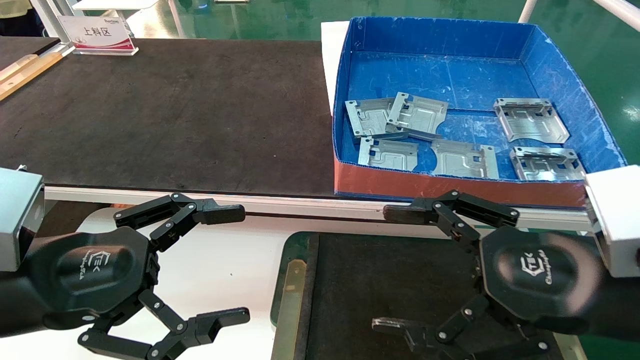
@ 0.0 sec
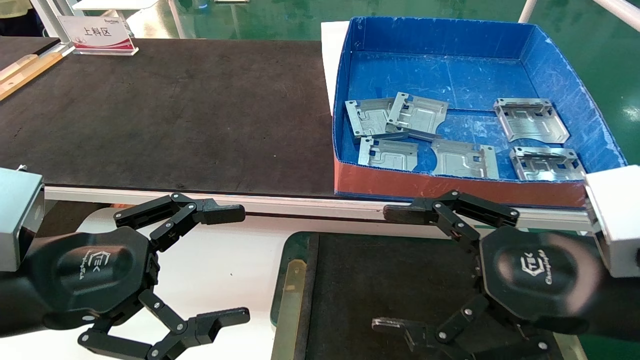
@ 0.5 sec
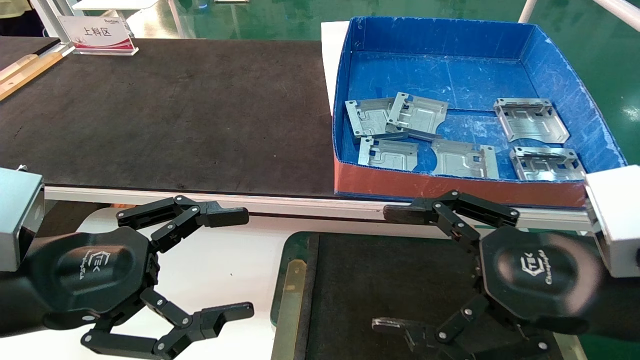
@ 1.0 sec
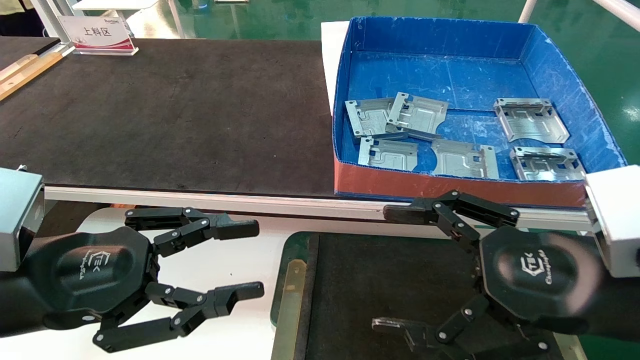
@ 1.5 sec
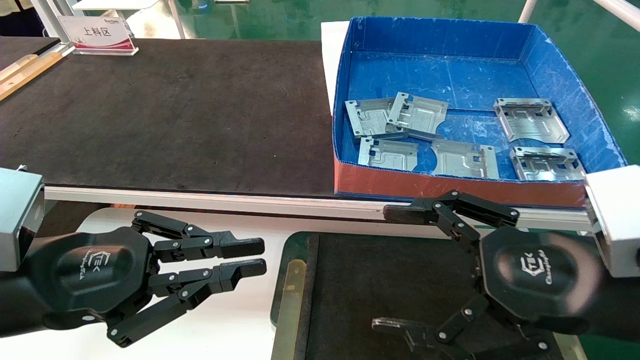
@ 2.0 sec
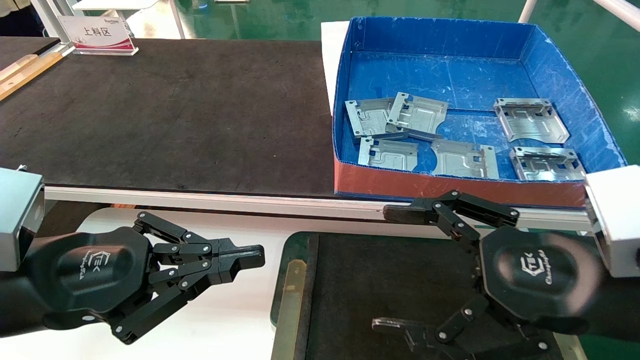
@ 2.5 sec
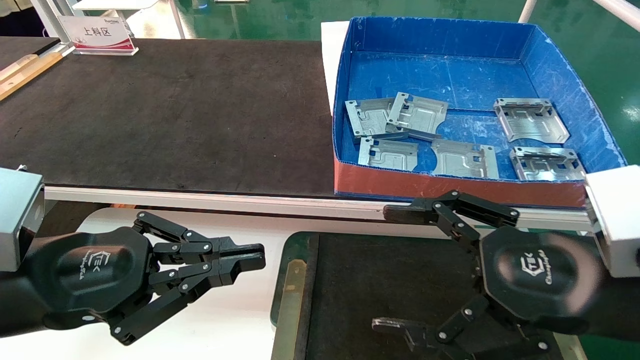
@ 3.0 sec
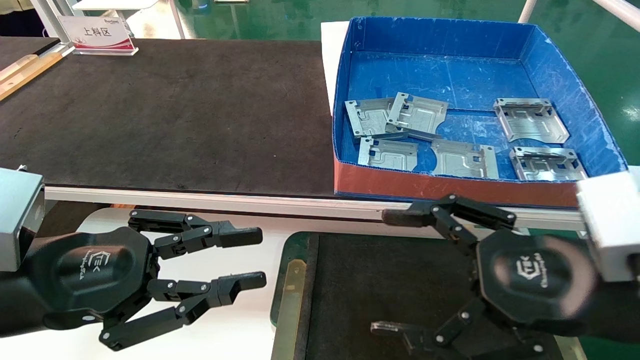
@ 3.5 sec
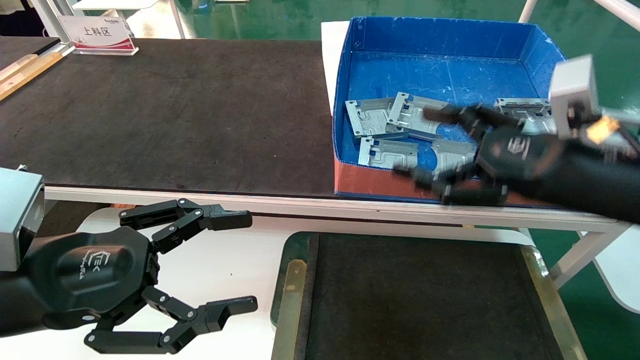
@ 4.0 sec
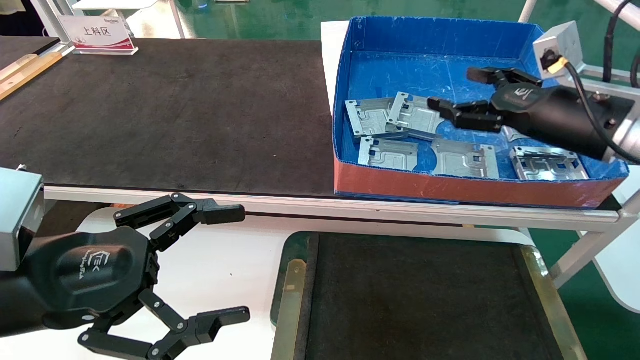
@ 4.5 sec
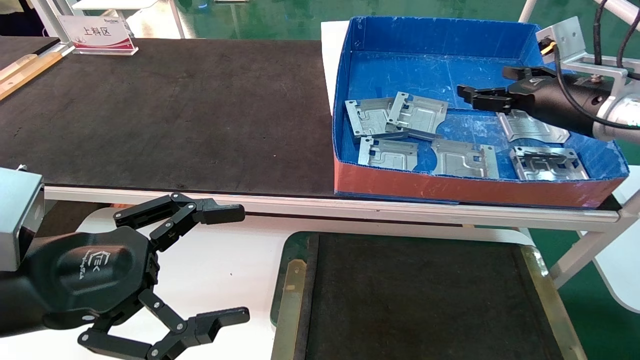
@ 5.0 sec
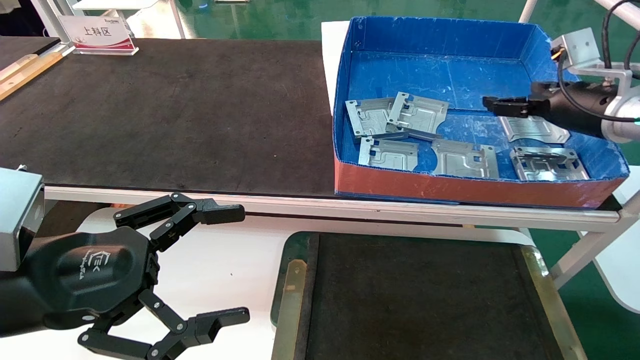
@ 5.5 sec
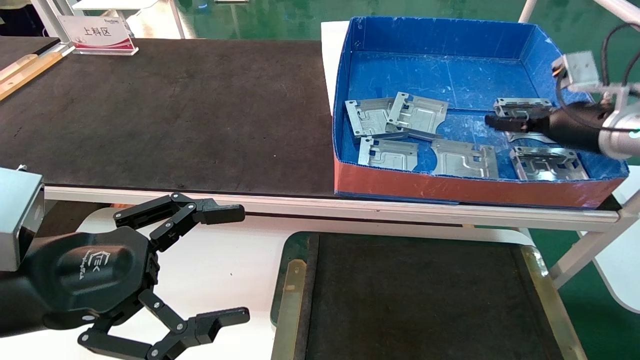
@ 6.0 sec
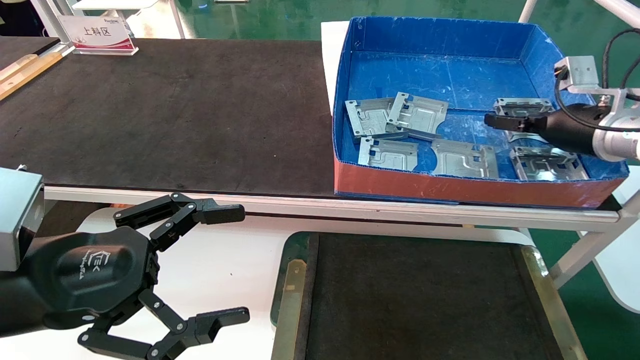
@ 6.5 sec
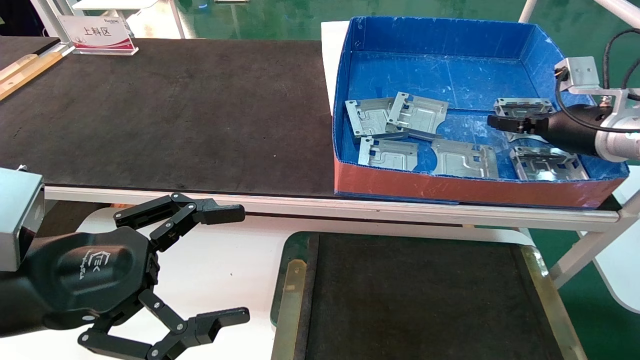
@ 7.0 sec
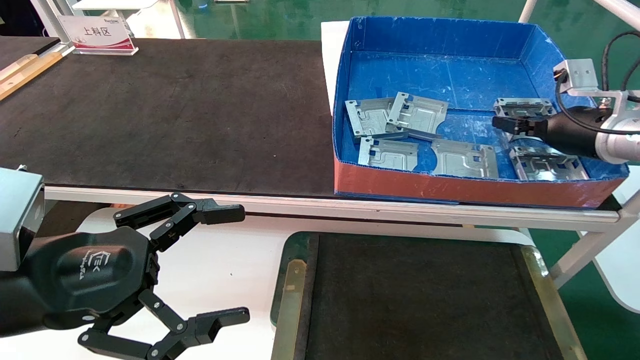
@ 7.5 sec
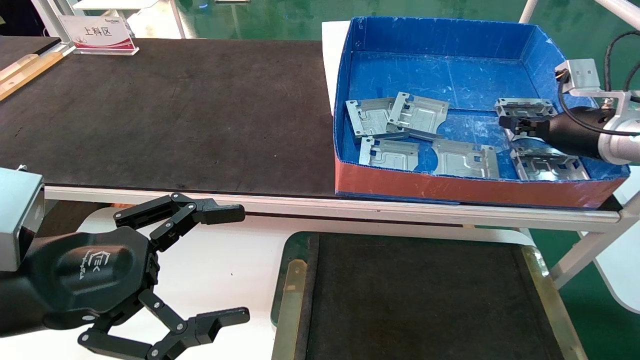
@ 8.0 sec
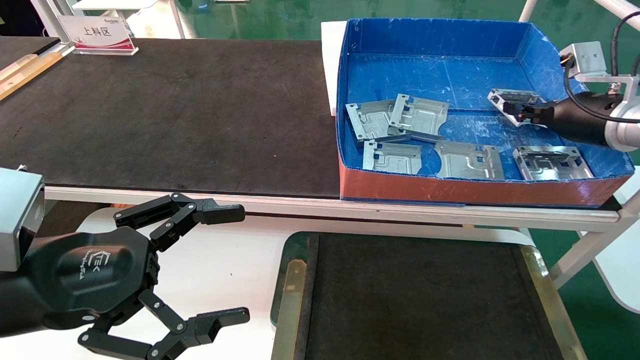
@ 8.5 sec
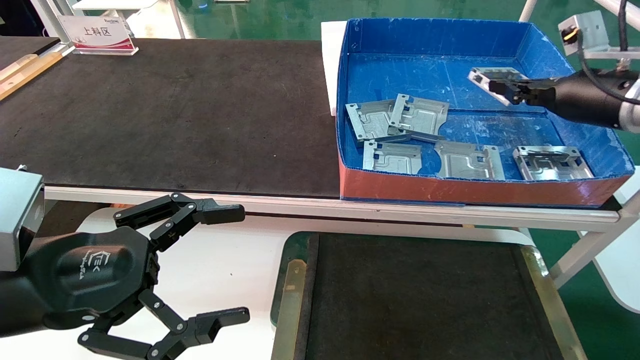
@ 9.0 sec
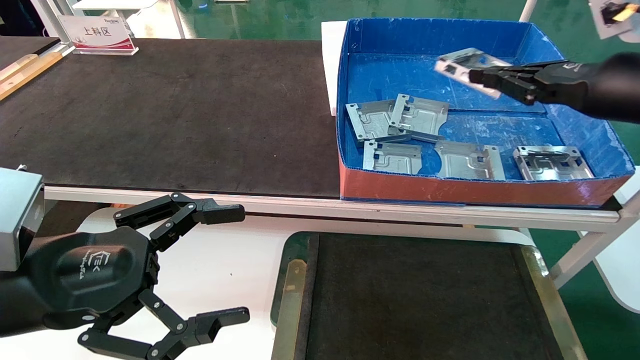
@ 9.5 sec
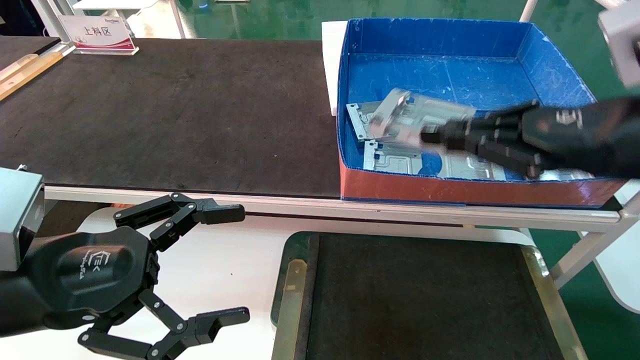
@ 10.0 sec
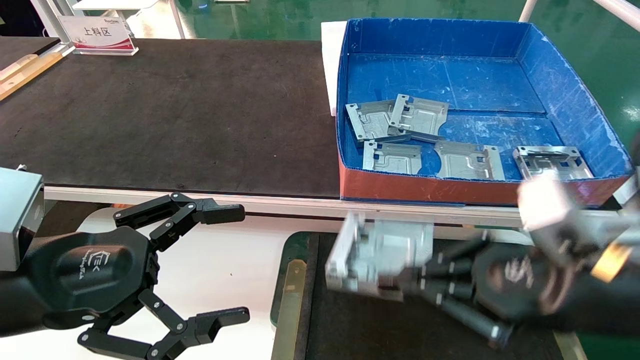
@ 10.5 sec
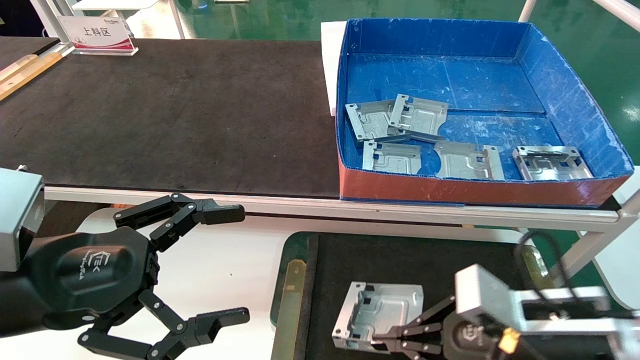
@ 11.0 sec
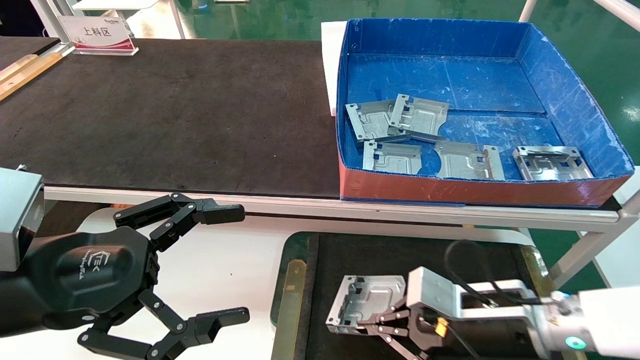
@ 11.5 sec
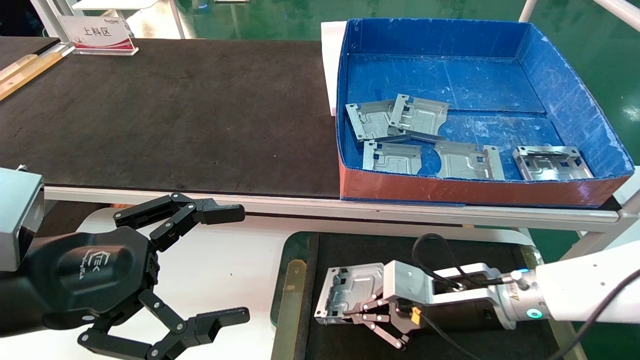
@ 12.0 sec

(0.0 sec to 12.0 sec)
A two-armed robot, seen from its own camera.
Task of the whole recording: pick up parts and place them into a black container.
Step, 4.0 sec - 8.0 sec: Pick up the hard drive bracket from the feeding area.
0.0 sec - 2.0 sec: The left gripper closes up.
2.0 sec - 4.0 sec: The right gripper moves forward, approximately 10 cm. Meanwhile the left gripper opens up.
4.0 sec - 6.0 sec: The right gripper travels forward and to the right by about 20 cm. The left gripper opens up.
6.0 sec - 8.0 sec: The right gripper closes its fingers.
8.0 sec - 10.0 sec: The right gripper shifts roughly 20 cm backward and to the left.
10.0 sec - 12.0 sec: The right gripper heads downward and to the left, covering roughly 25 cm.

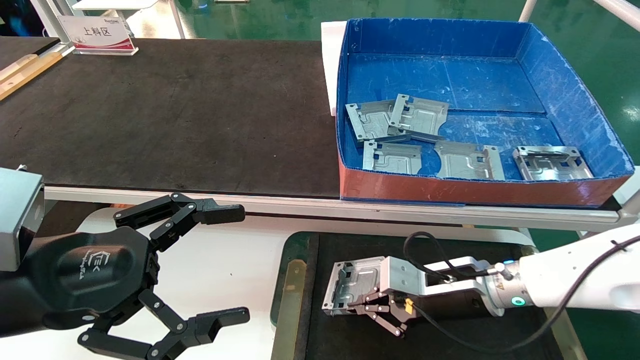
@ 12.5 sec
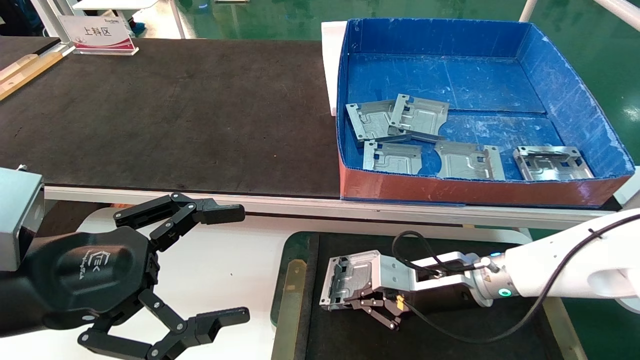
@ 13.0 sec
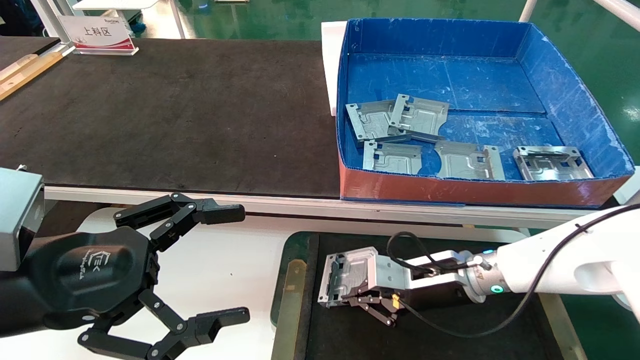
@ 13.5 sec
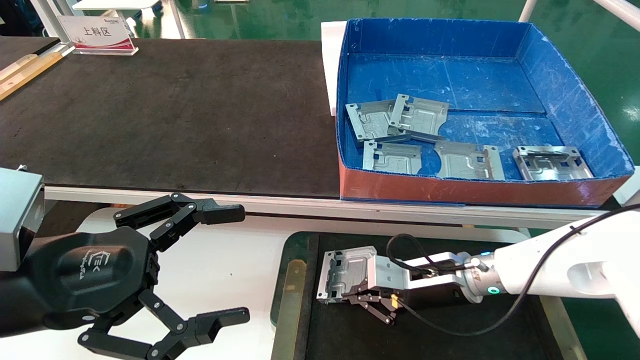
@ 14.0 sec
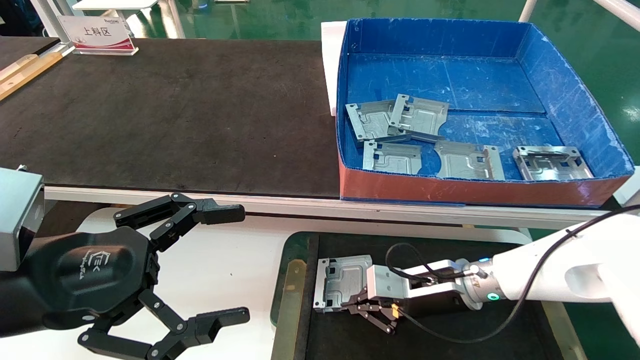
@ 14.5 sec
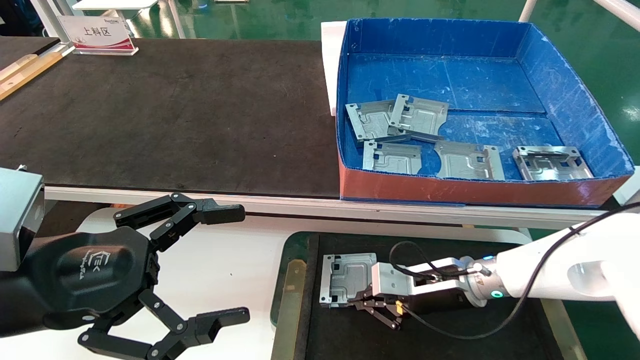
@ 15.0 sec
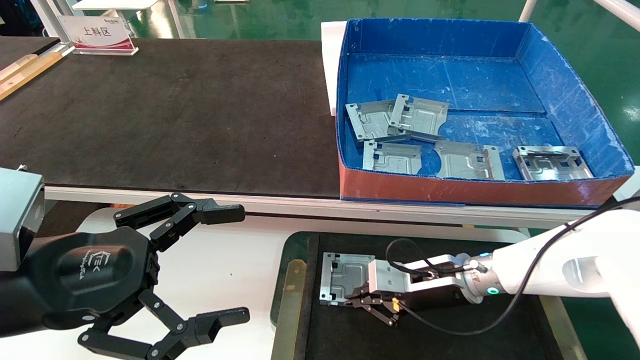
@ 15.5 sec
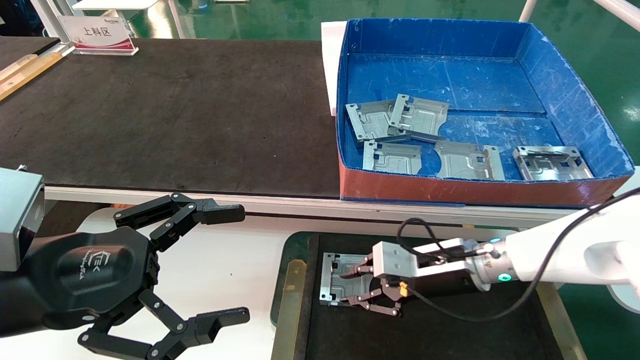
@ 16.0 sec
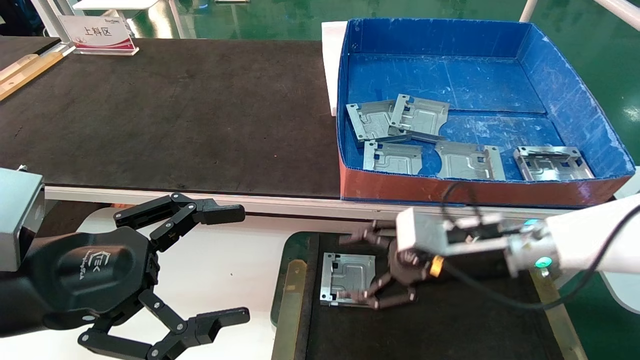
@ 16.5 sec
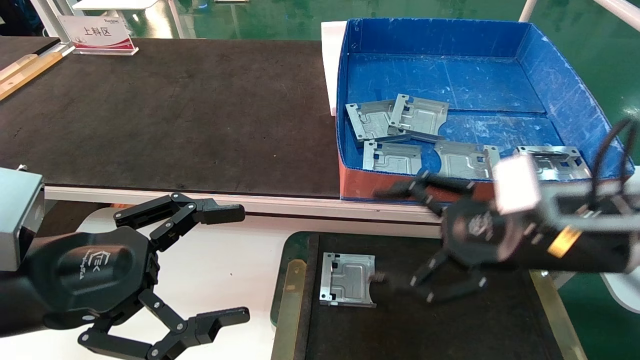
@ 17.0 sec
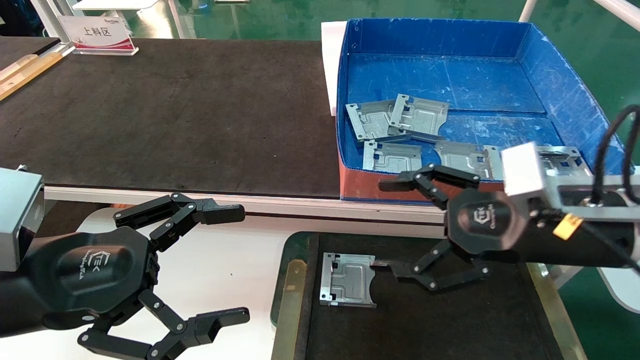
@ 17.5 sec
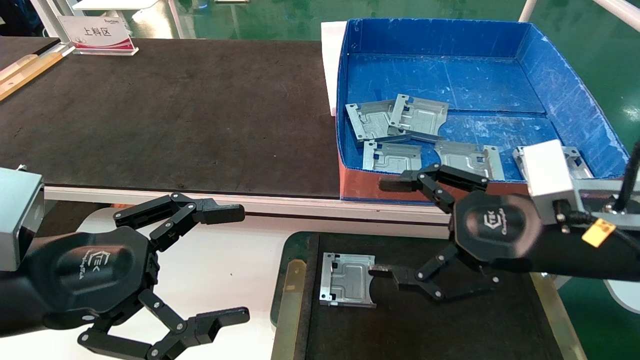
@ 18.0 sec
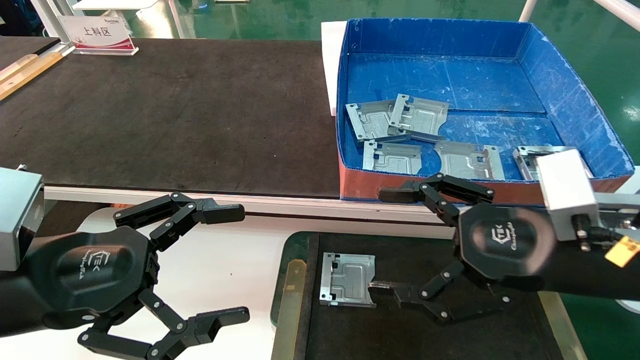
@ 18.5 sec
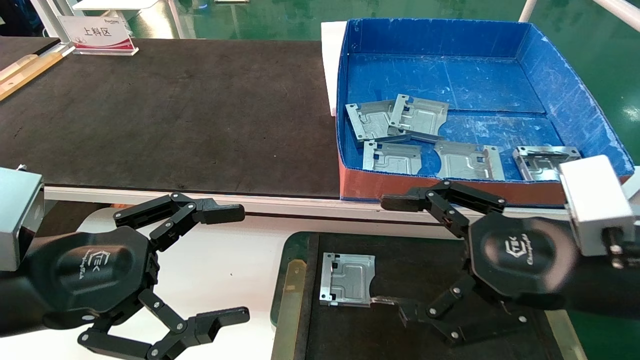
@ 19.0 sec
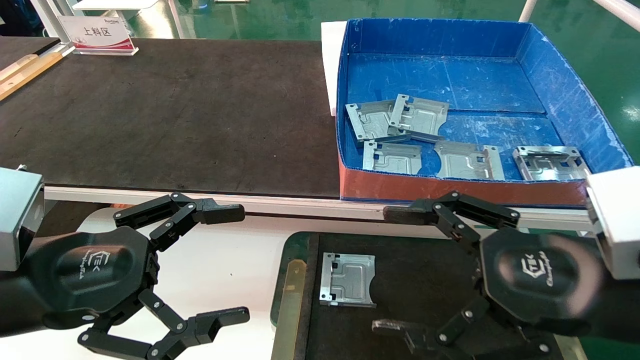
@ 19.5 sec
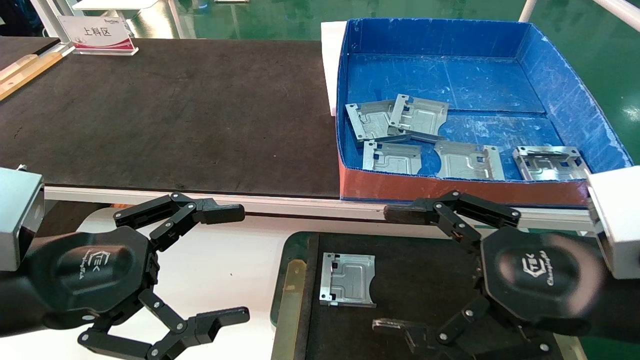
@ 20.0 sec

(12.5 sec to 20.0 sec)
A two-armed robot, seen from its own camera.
Task of the whole recording: pick up parts and place them into a black container.
Step, 12.5 sec - 16.0 sec: Place the hard drive bracket into the box.
12.5 sec - 14.5 sec: The grippers move only a little.
14.5 sec - 16.5 sec: The right gripper moves upward, approximately 10 cm, and opens its fingers.
16.5 sec - 18.0 sec: The right gripper heads backward and upward, covering roughly 10 cm, and opens up.
18.0 sec - 20.0 sec: The right gripper shifts roughly 5 cm backward.
